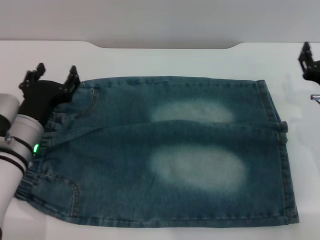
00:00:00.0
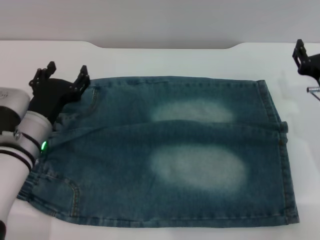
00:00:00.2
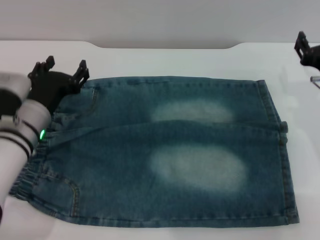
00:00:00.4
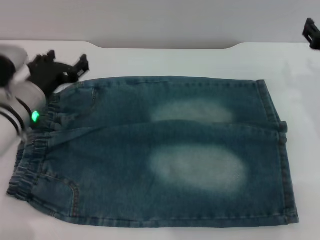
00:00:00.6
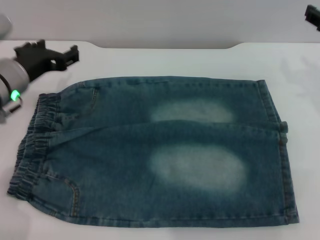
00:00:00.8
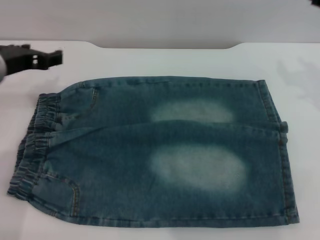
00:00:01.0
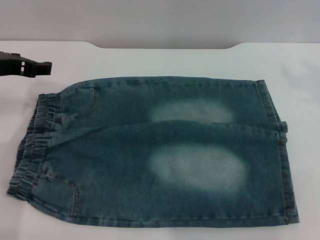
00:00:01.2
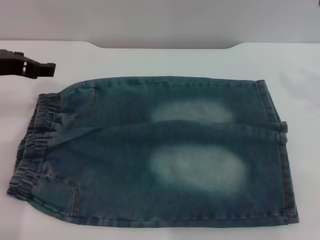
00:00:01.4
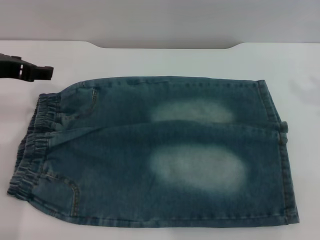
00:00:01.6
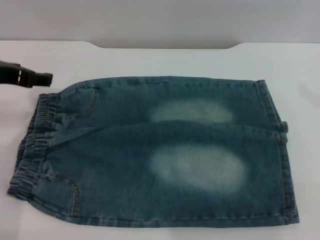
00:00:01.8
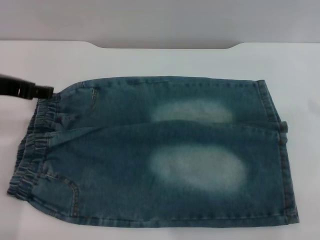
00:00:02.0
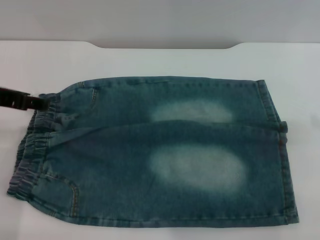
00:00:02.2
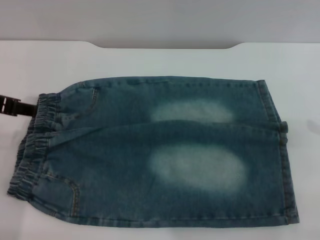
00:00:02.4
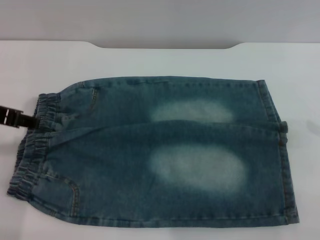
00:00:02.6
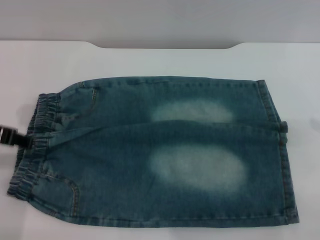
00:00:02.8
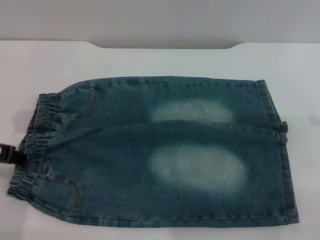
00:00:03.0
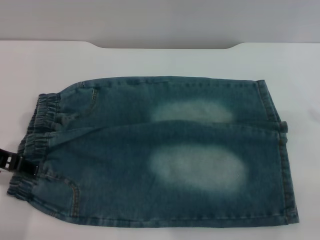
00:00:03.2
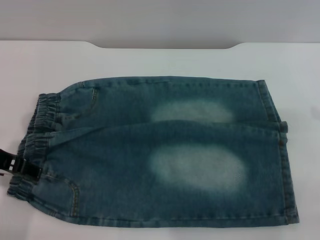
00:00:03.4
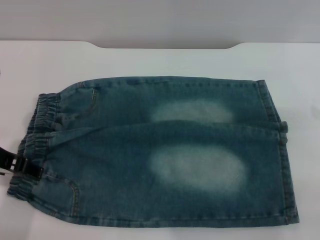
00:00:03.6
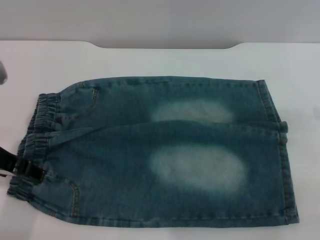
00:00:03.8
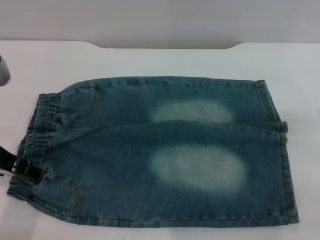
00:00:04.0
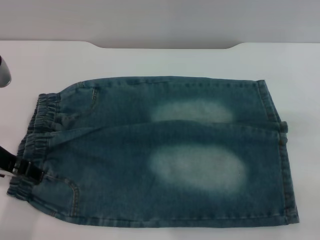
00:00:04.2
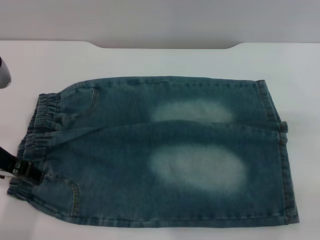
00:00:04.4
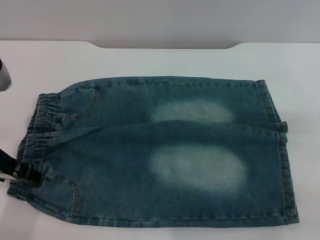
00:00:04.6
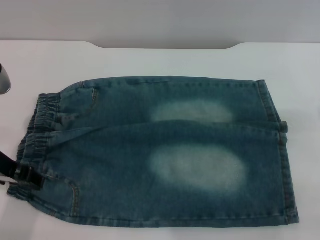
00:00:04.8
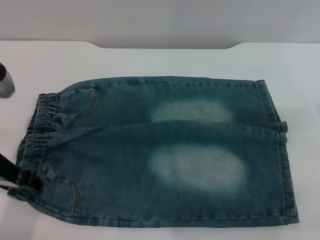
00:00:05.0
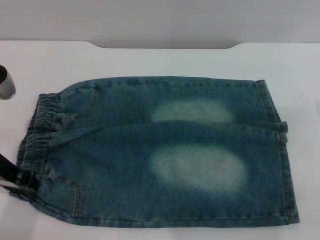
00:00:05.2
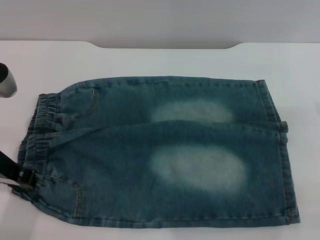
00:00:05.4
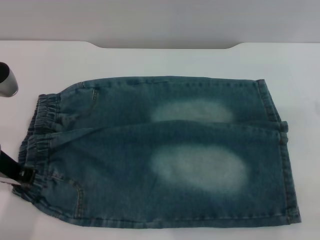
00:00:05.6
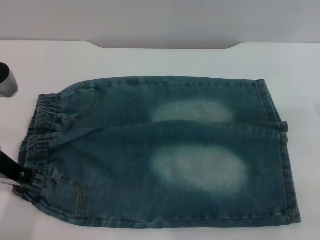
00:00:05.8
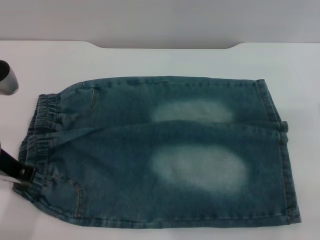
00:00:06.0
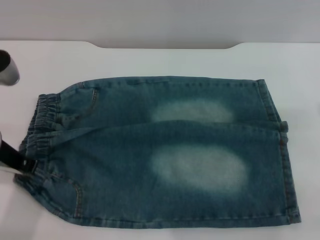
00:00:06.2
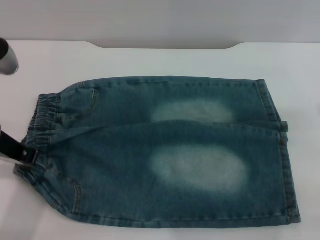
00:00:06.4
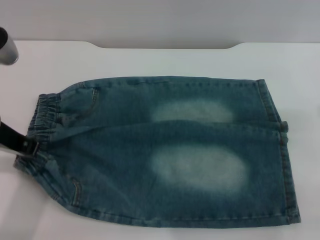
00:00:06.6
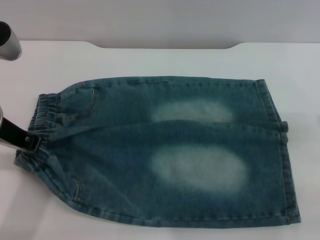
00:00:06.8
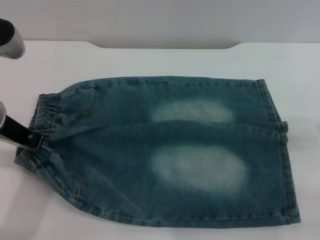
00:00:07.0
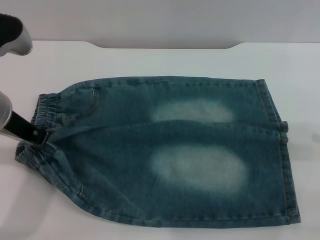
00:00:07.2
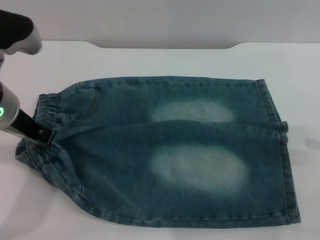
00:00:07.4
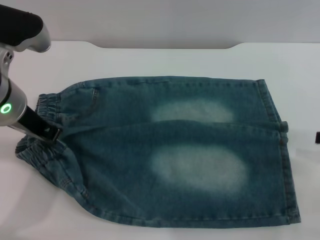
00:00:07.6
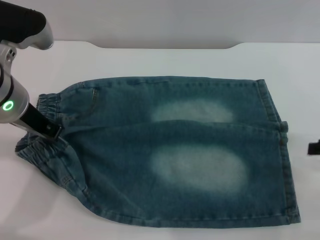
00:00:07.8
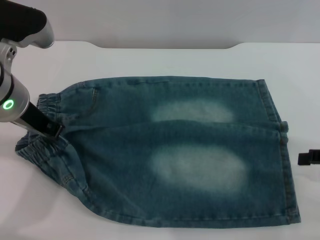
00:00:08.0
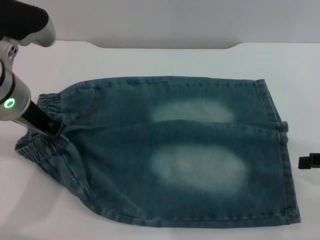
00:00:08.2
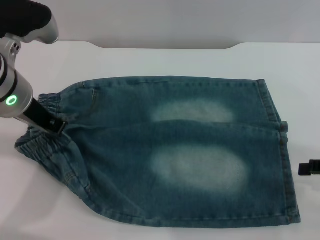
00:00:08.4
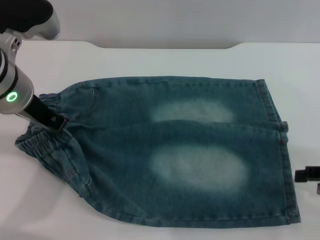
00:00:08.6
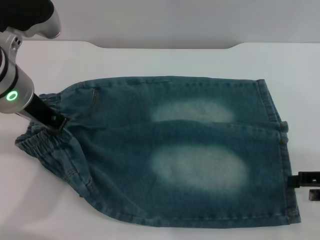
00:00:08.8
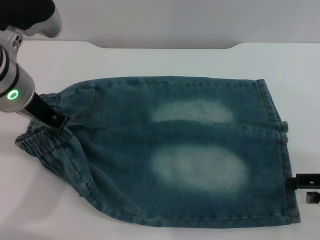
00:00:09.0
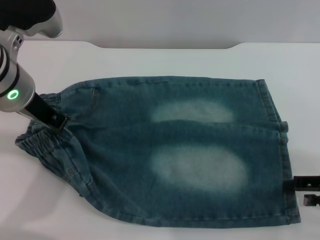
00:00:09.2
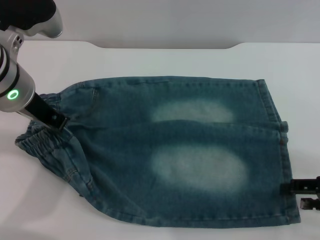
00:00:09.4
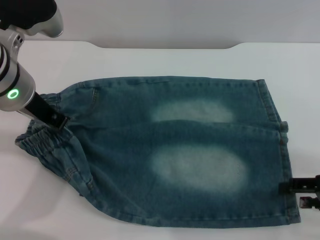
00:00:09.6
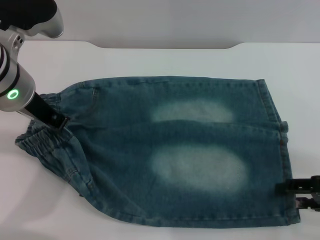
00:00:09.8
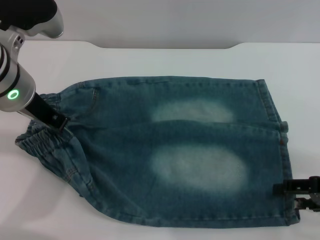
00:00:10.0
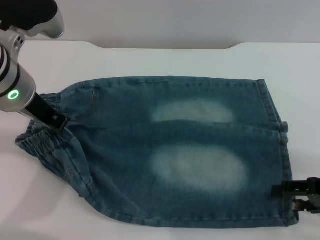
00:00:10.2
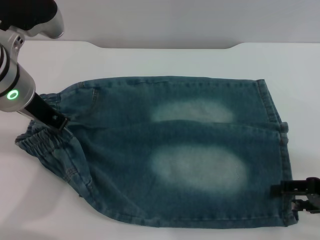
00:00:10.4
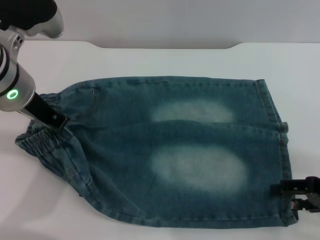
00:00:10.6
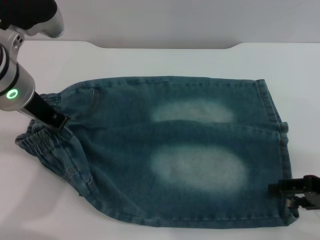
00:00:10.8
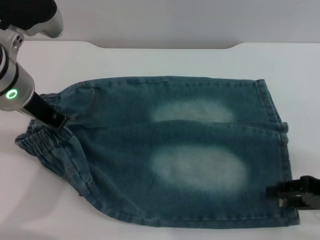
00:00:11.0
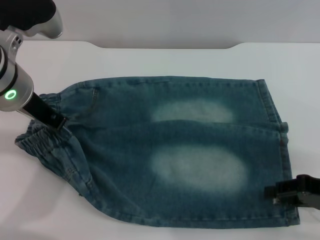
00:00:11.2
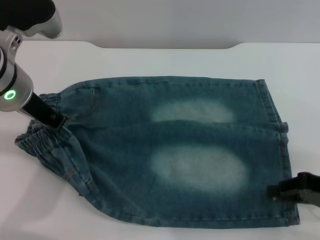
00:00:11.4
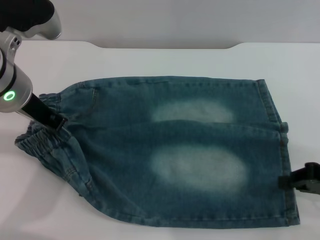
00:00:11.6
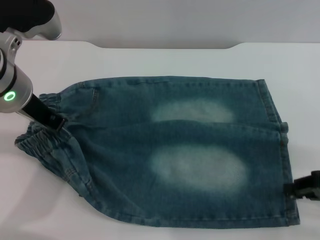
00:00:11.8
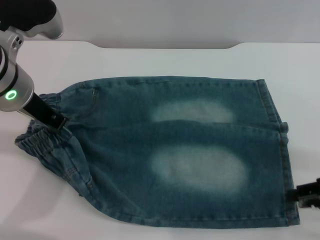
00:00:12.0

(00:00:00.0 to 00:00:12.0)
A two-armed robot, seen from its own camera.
00:00:00.0 - 00:00:01.6: Both grippers move upward, approximately 20 cm.
00:00:01.6 - 00:00:03.0: The left gripper moves backward, about 5 cm.
00:00:03.0 - 00:00:04.4: There are only small adjustments of the grippers.
00:00:04.4 - 00:00:06.0: The left gripper closes up.
00:00:06.0 - 00:00:07.6: The left gripper shifts by roughly 5 cm.
00:00:07.6 - 00:00:09.0: The right gripper moves some 5 cm.
00:00:09.0 - 00:00:10.4: The grippers make only small movements.
00:00:10.4 - 00:00:12.0: The right gripper closes.

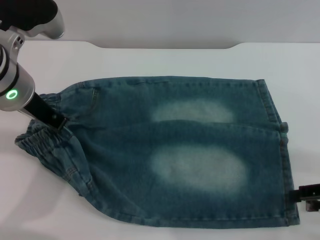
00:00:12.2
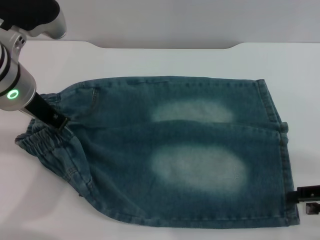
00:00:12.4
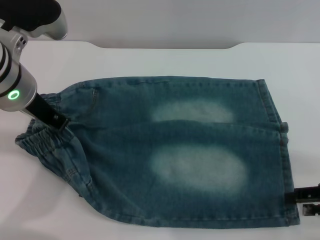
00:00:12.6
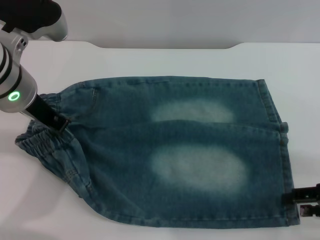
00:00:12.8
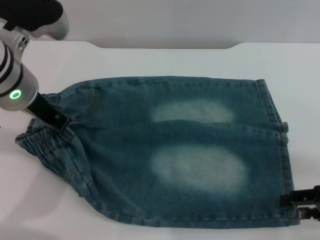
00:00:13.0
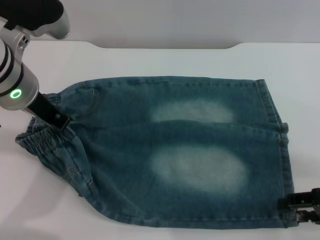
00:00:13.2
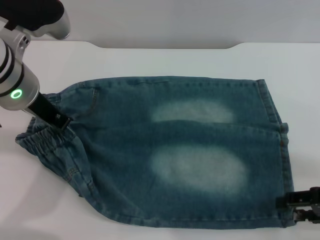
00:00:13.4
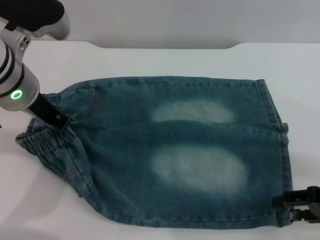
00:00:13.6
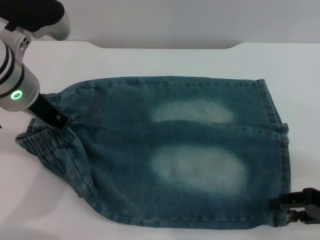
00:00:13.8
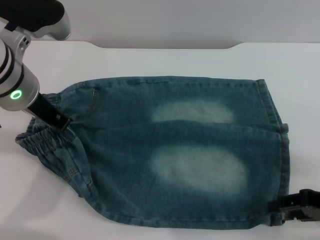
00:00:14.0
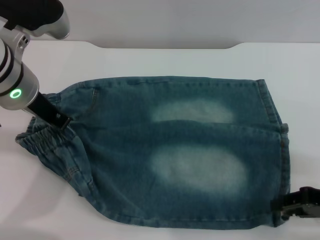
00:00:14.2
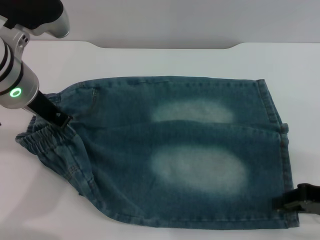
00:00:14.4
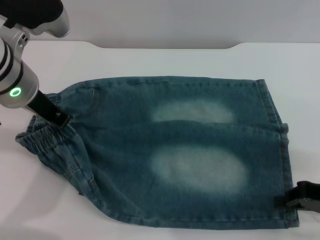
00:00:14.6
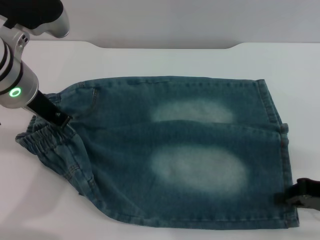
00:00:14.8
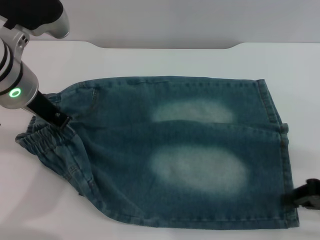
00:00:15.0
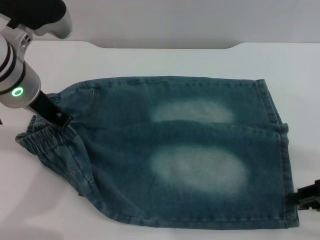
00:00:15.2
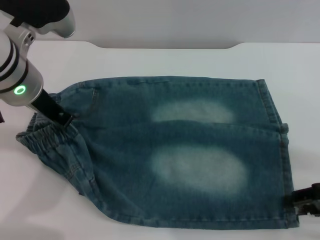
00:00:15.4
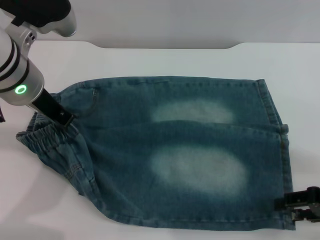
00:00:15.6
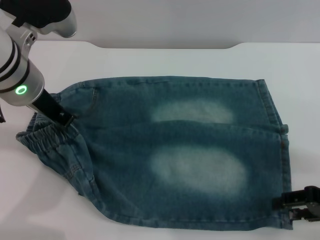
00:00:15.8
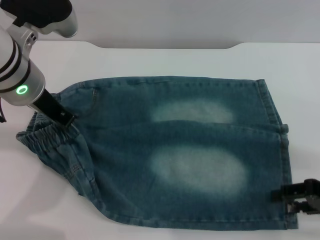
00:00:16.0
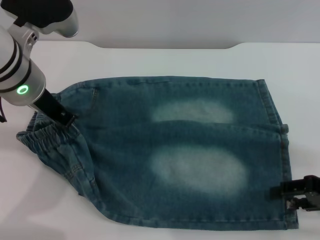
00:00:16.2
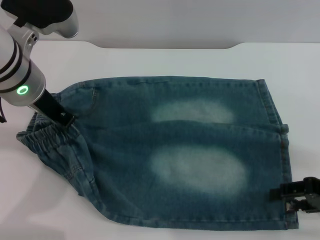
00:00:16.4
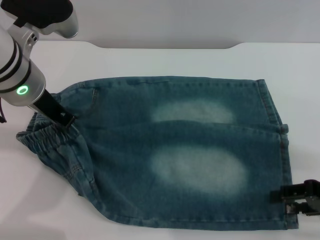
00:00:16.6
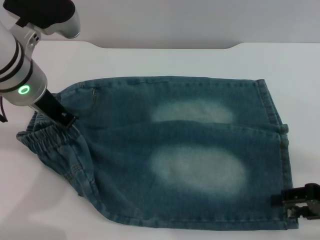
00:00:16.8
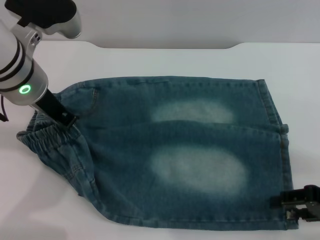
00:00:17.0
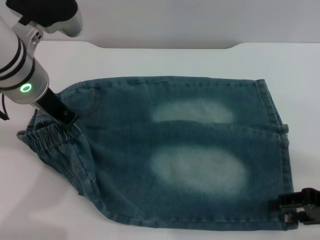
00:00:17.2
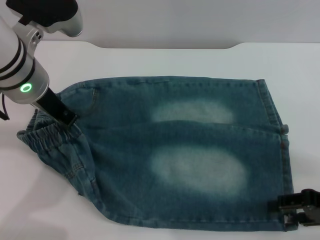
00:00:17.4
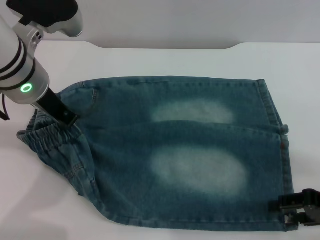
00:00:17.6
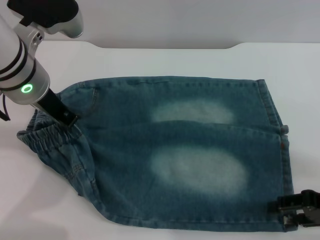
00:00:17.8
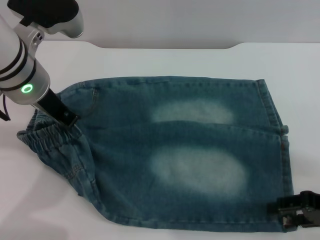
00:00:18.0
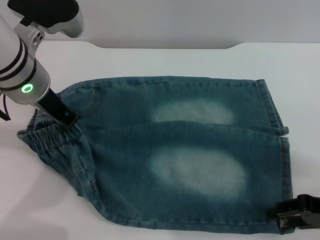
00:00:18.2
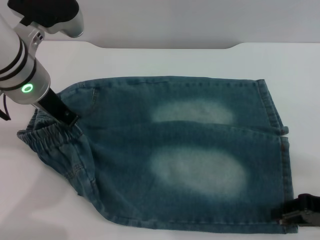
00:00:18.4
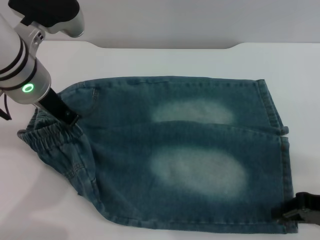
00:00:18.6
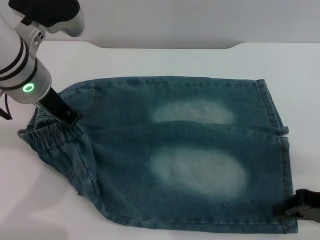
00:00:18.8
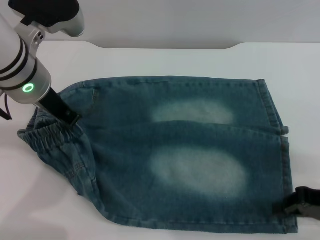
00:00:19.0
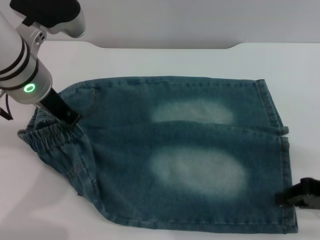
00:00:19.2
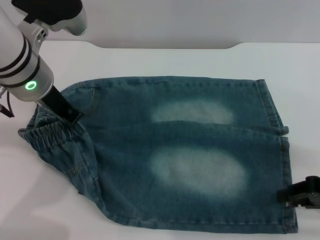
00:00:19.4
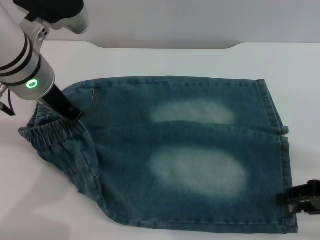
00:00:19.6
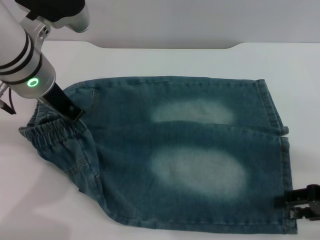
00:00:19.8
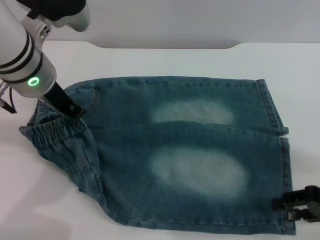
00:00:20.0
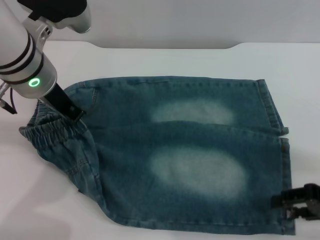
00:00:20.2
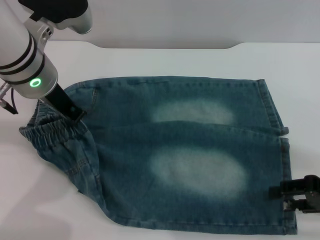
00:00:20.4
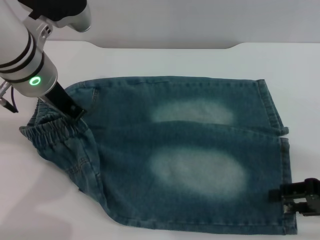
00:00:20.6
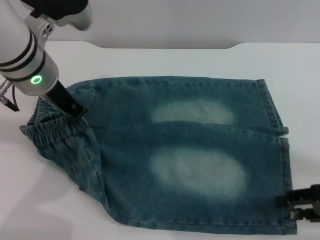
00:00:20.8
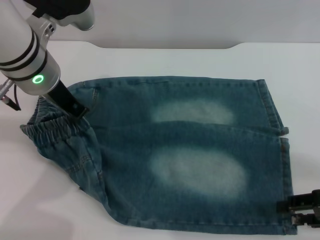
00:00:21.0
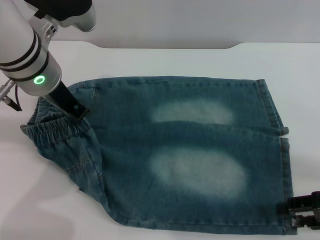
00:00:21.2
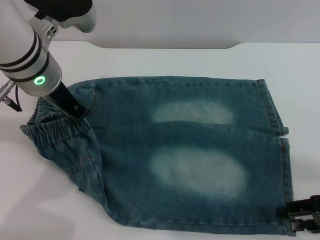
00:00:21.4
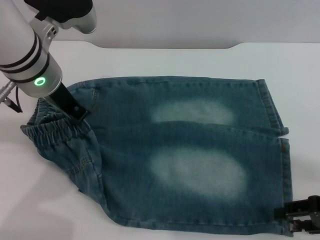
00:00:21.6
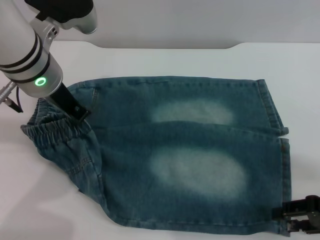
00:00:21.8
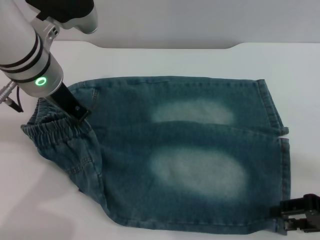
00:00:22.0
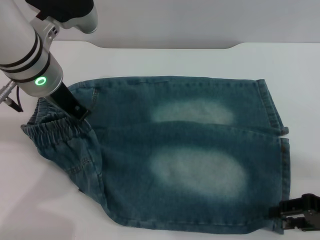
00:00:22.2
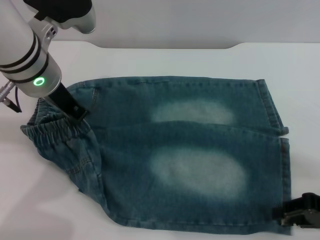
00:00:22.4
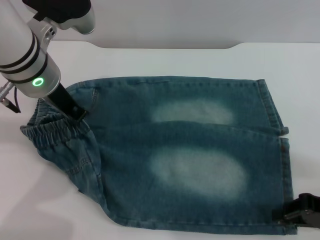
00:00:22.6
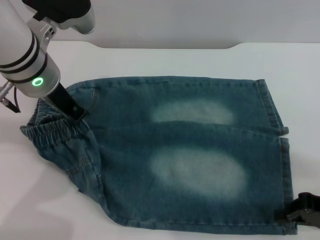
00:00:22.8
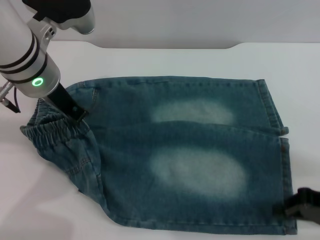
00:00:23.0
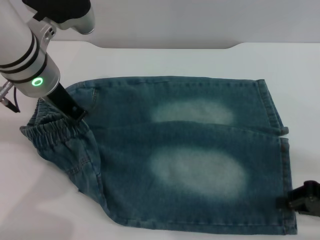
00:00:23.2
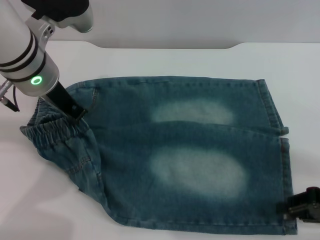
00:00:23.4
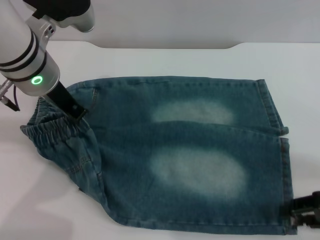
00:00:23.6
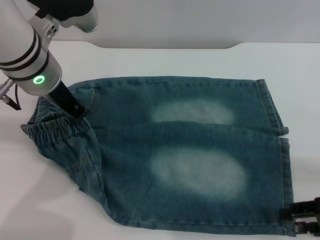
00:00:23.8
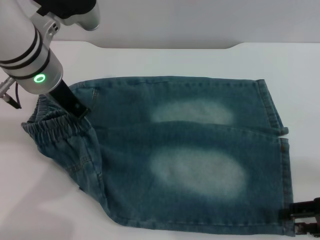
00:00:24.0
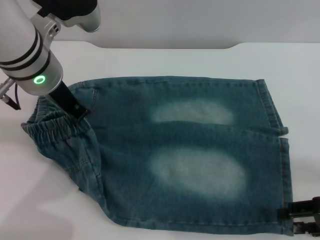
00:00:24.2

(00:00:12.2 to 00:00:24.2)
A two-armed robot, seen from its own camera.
00:00:12.2 - 00:00:13.8: The right gripper opens its fingers.
00:00:13.8 - 00:00:15.2: The right gripper closes.
00:00:15.2 - 00:00:16.6: The right gripper opens up.
00:00:16.6 - 00:00:18.2: The grippers move only a little.
00:00:18.2 - 00:00:19.8: The right gripper closes, then reopens.
00:00:19.8 - 00:00:21.2: The grippers move only a little.
00:00:21.2 - 00:00:22.6: The right gripper closes.
00:00:22.6 - 00:00:24.2: The right gripper opens its fingers.
